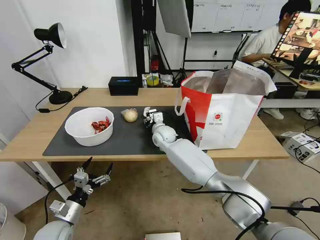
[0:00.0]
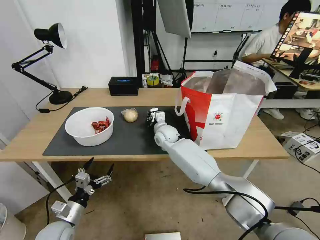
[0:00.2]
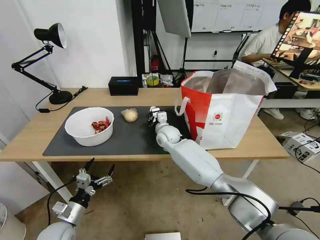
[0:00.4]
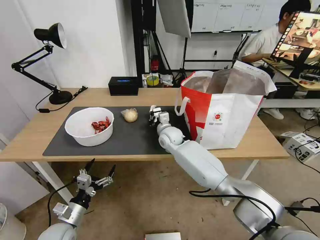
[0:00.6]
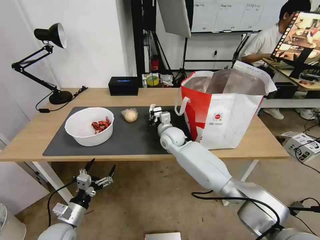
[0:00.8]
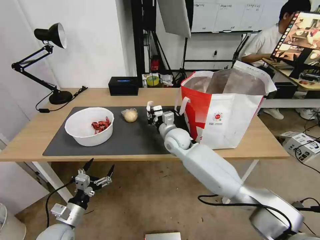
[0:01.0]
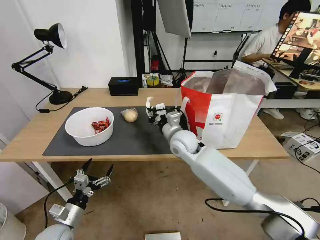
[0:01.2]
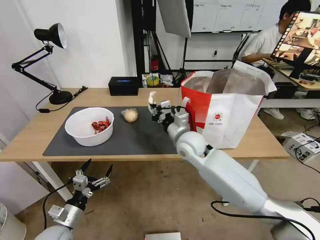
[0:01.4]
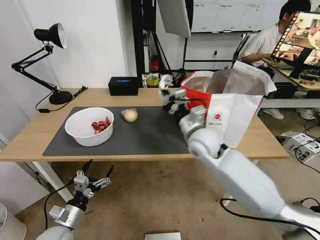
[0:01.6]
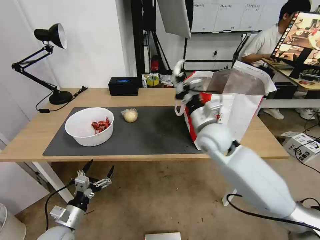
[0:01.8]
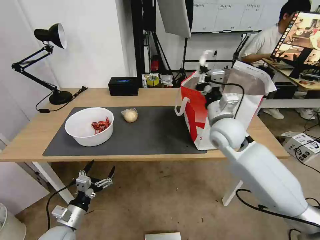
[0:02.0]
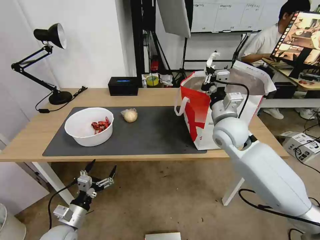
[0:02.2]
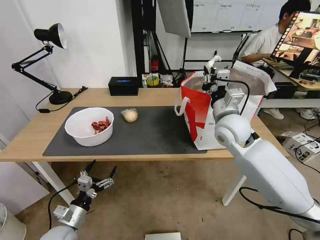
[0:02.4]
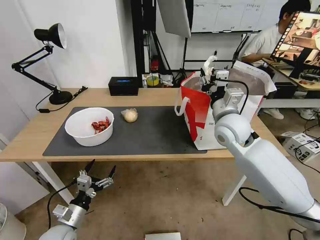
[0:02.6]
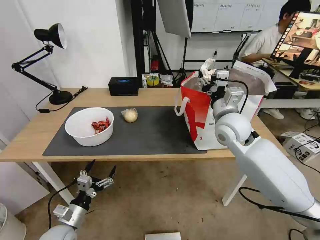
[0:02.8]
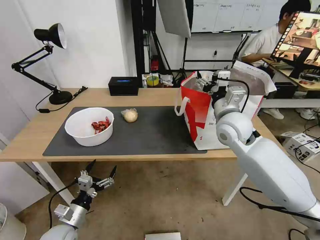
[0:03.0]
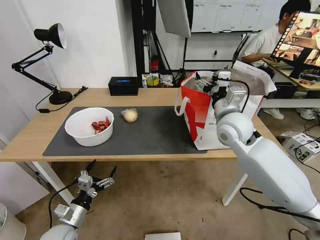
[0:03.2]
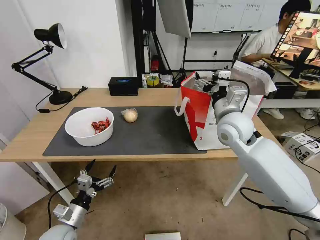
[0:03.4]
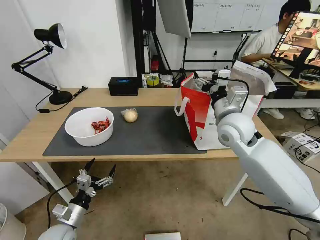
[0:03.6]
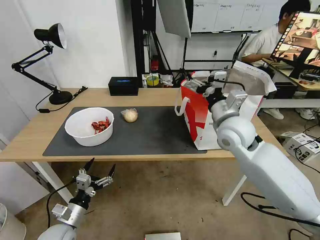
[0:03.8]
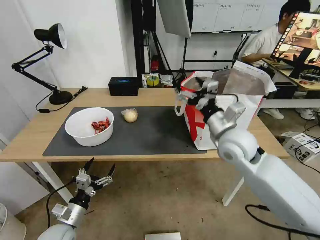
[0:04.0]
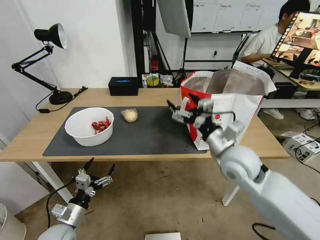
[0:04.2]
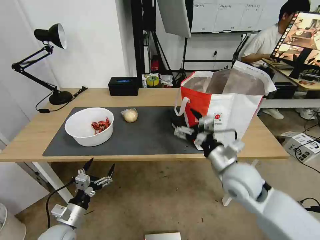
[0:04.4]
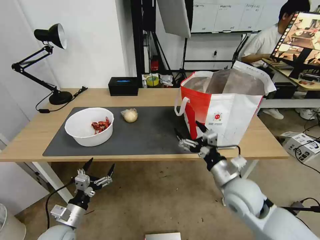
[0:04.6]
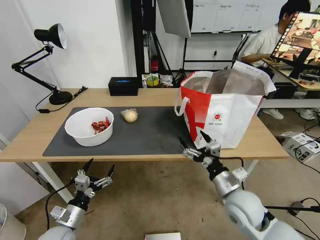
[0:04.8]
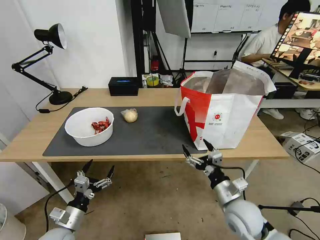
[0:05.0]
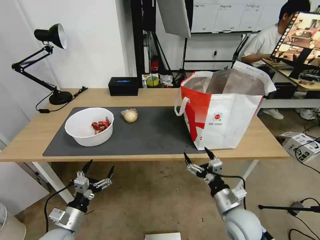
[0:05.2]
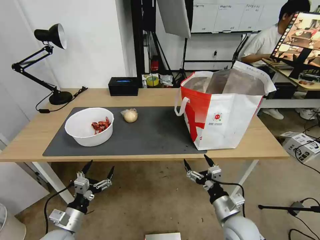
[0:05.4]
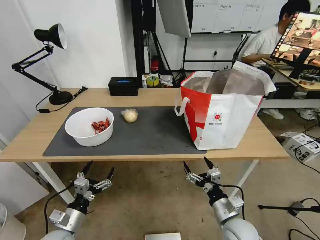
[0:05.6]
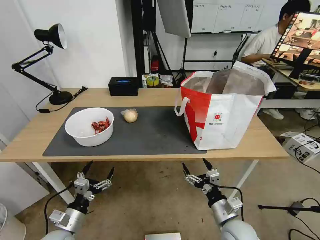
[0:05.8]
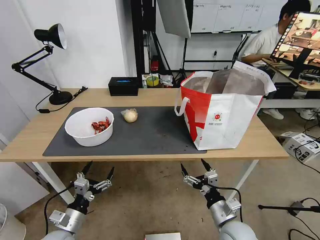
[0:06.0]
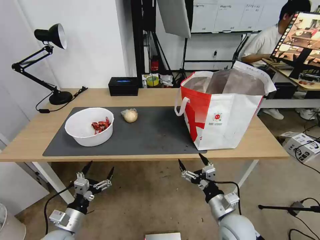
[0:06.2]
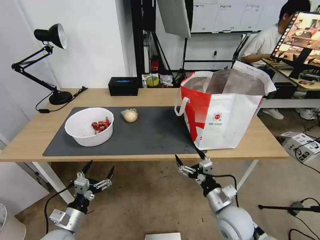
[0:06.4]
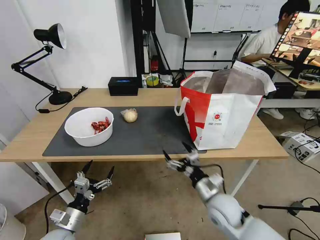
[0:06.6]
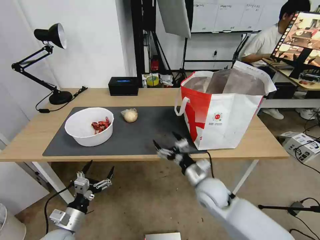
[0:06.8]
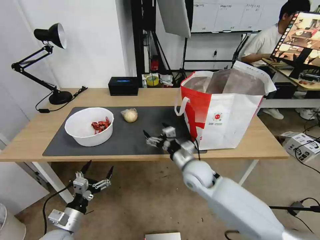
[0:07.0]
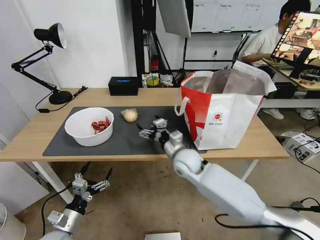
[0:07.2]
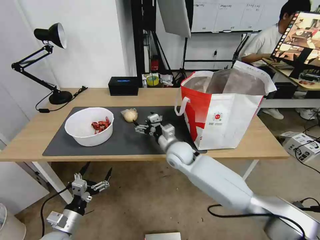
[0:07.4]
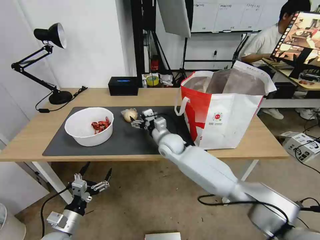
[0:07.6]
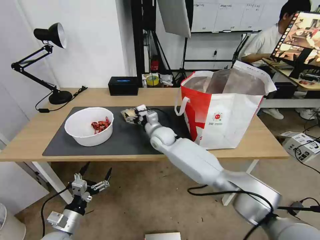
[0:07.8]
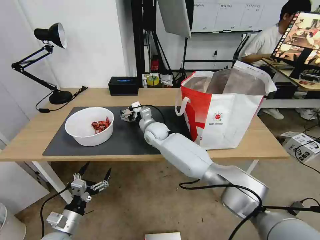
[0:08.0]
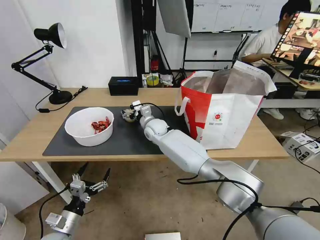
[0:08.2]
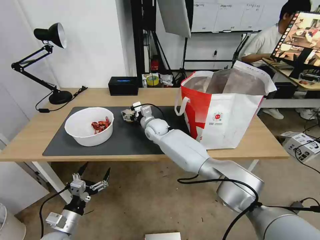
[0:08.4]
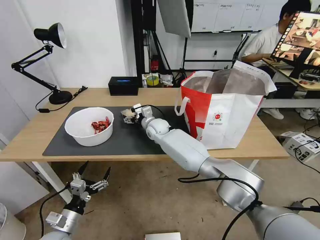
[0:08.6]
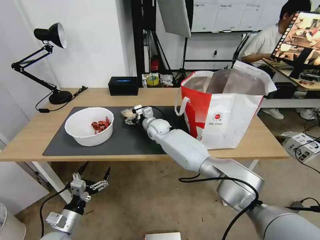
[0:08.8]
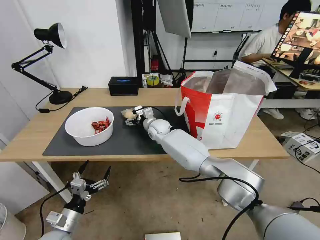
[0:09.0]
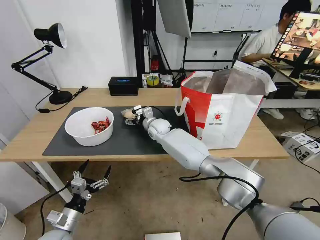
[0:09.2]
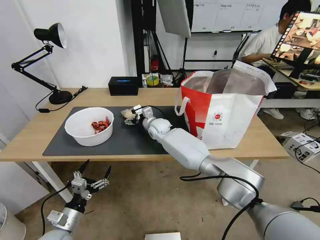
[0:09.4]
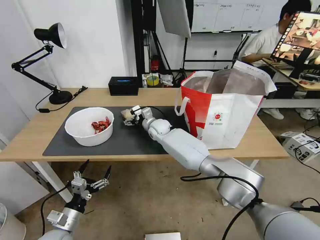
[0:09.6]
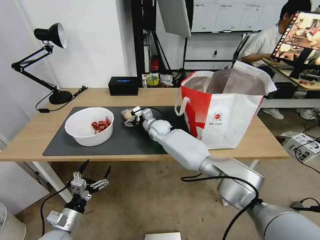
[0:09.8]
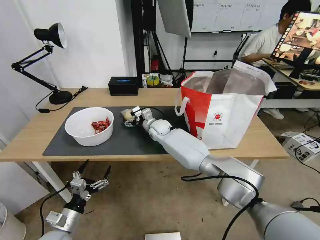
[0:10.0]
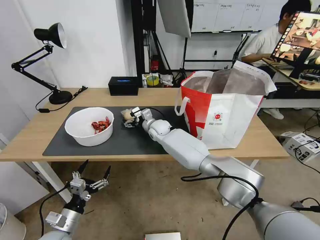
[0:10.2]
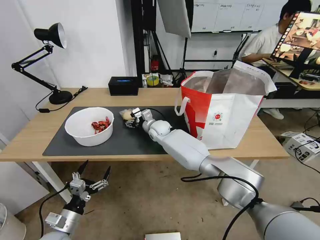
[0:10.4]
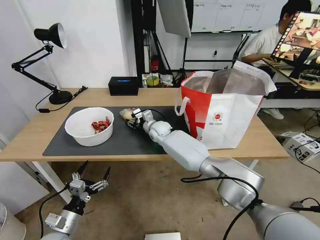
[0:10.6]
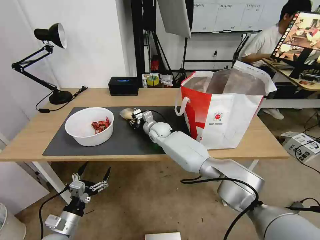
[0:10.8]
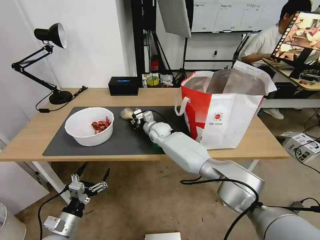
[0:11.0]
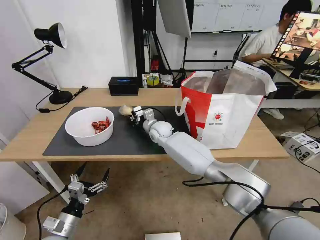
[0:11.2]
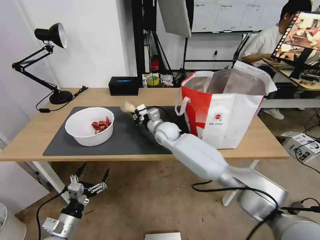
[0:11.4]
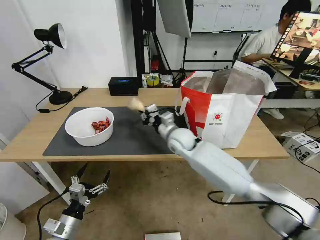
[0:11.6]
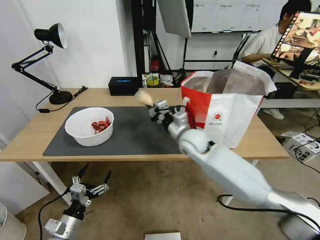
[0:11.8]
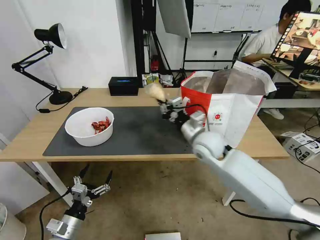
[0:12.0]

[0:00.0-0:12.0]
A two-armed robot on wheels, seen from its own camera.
Task of the whole recording: Pick up the trash from the table and place it into the takeout bag.
0:00.0 to 0:01.6: The right gripper travels backward, to the right and upward by approximately 20 cm, and closes its fingers.
0:01.6 to 0:03.0: The right gripper goes approximately 10 cm to the right and upward, and opens its fingers.
0:03.0 to 0:04.4: The right gripper moves backward and downward, roughly 15 cm.
0:04.4 to 0:06.0: The right gripper heads downward and backward, covering approximately 20 cm.
0:06.0 to 0:07.6: The right gripper heads forward and to the left, covering roughly 35 cm.
0:07.6 to 0:09.0: The right gripper goes about 10 cm forward.
0:09.0 to 0:10.4: The grippers move only a little.
0:10.4 to 0:12.0: The right gripper shifts some 25 cm backward, to the right and upward, and closes its fingers.

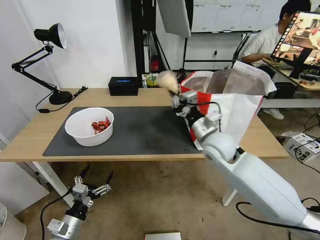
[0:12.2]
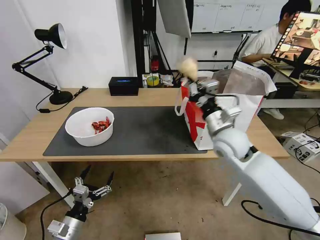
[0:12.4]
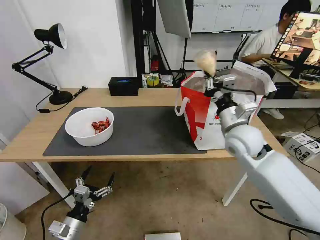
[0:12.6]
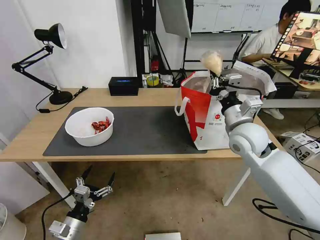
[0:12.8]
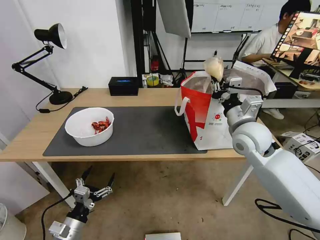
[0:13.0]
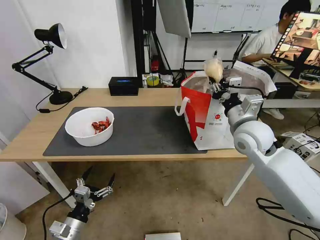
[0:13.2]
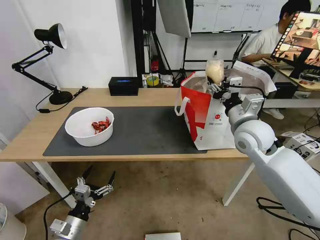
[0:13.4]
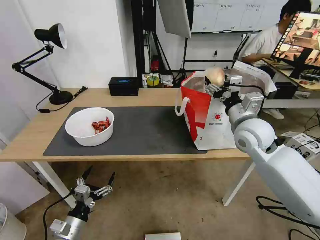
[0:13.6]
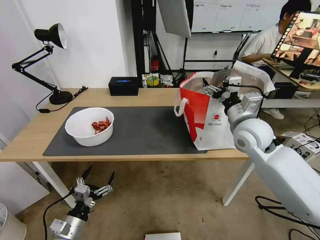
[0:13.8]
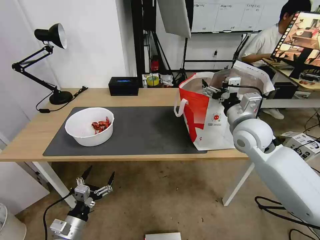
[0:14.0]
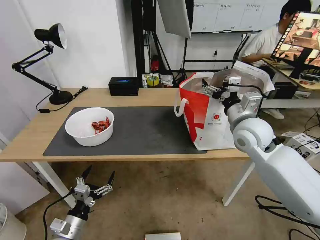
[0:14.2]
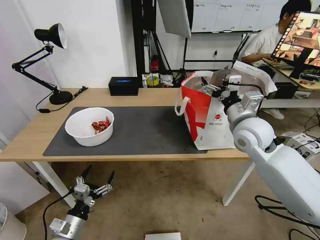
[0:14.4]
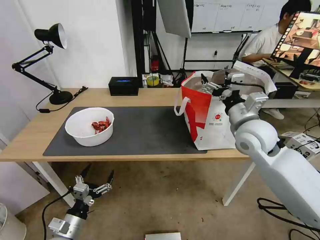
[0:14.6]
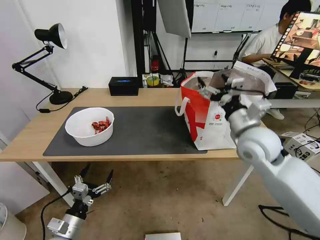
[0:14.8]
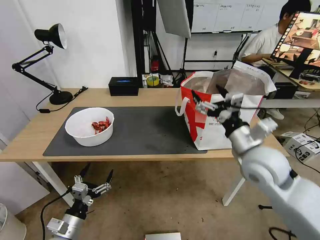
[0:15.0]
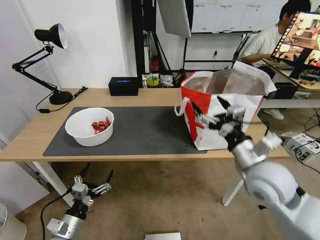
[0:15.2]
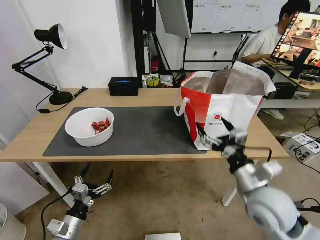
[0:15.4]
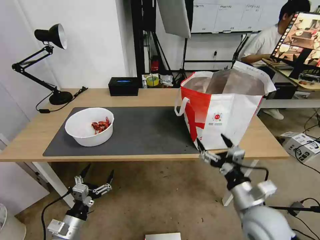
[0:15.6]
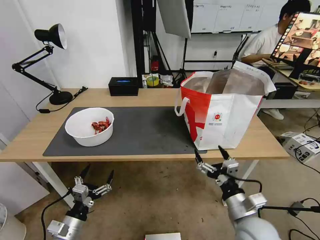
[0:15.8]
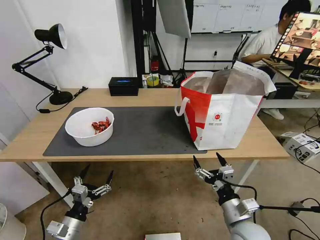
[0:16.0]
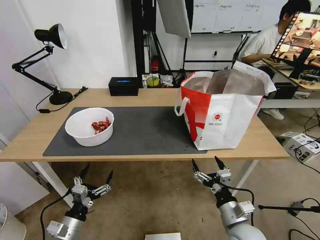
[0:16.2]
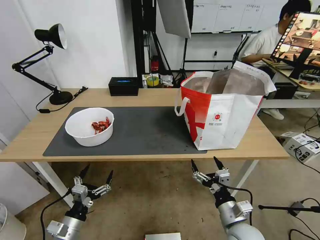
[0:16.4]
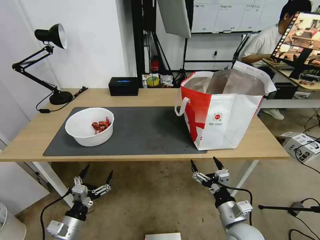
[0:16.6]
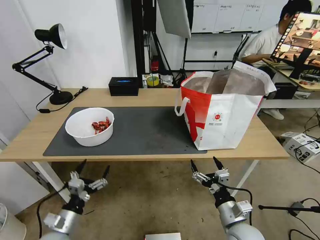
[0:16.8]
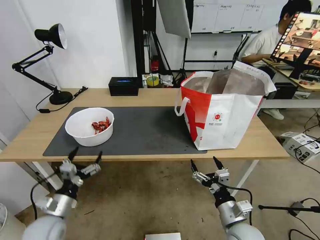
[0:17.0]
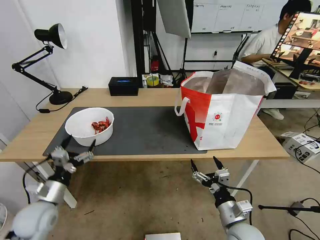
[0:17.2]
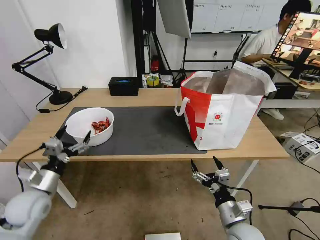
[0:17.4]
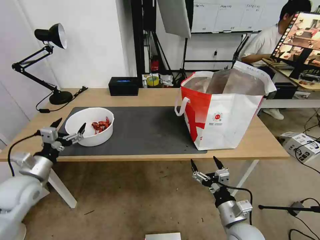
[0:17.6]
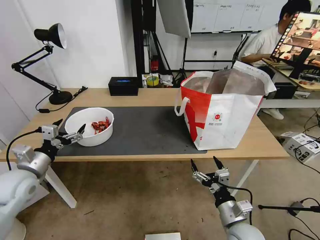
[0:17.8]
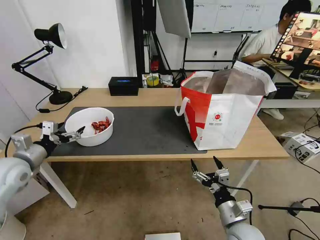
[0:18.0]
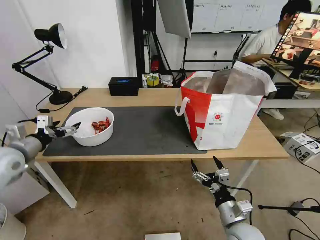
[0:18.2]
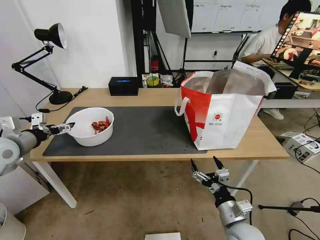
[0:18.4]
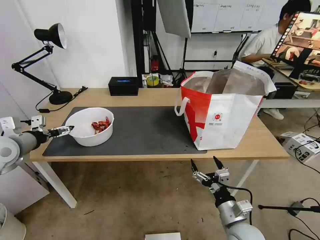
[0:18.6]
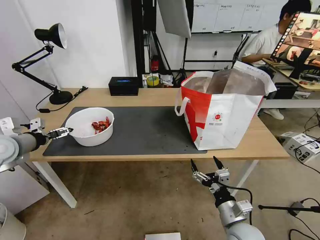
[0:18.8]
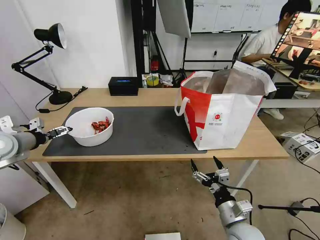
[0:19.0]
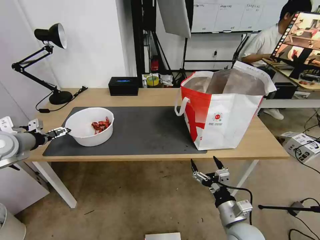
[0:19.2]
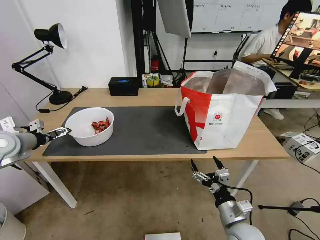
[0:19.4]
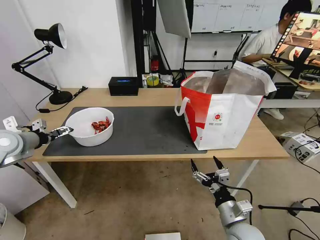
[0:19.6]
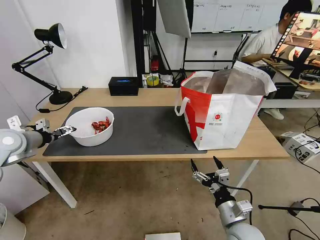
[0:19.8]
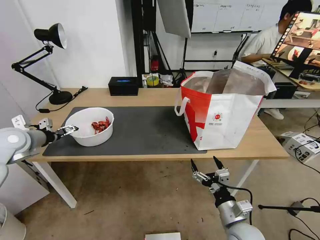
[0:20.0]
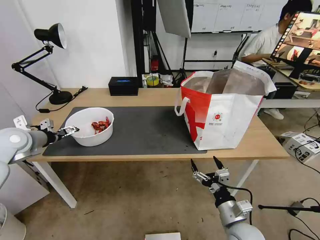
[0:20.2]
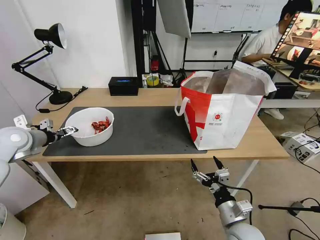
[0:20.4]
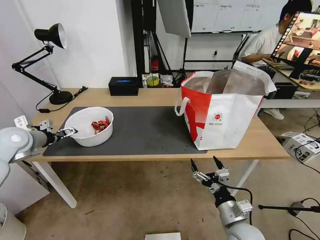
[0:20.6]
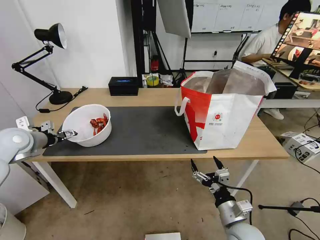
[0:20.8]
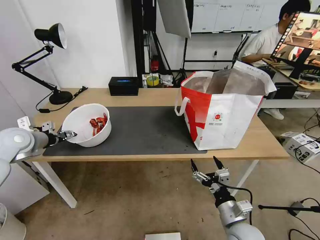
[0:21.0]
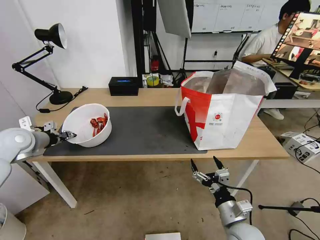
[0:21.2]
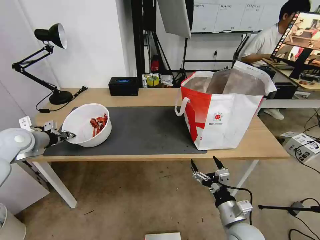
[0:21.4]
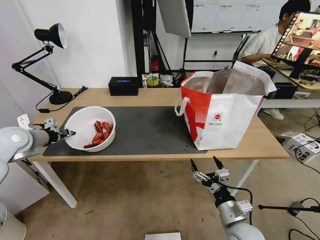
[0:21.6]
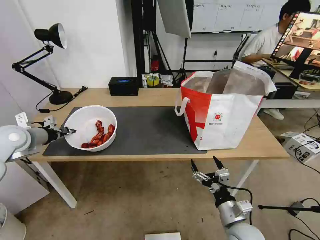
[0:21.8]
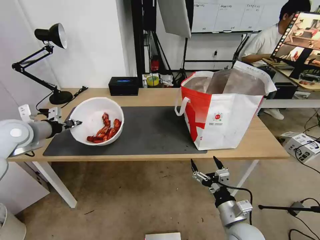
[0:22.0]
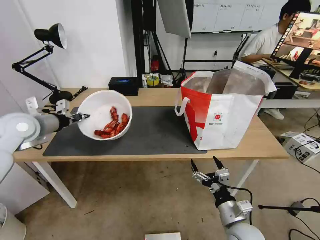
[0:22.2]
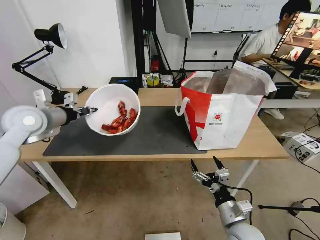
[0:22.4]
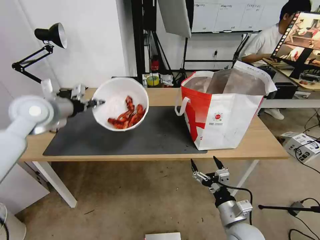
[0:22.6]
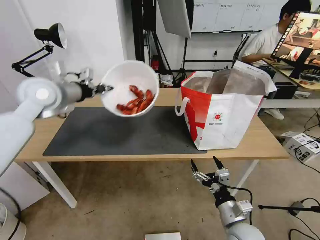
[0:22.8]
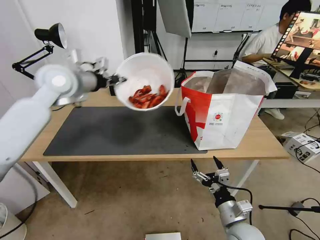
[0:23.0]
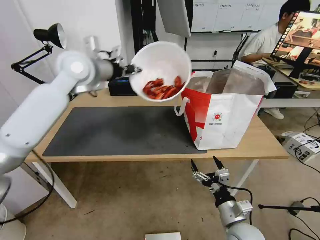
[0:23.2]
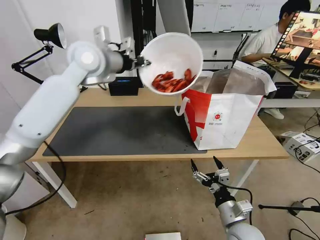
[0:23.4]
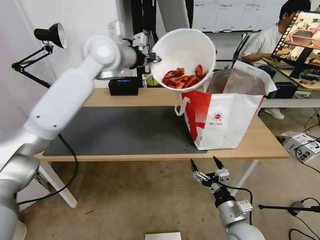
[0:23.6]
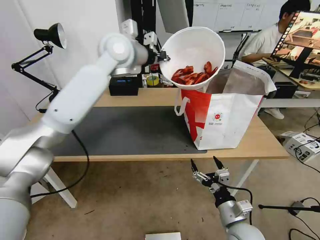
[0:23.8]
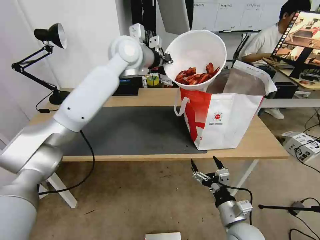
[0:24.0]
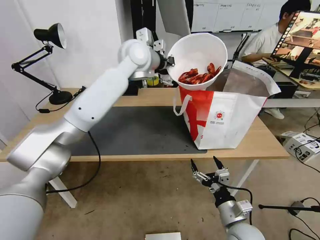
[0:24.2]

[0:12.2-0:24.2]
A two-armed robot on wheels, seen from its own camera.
Task of the whole recording: Pick up the trash from the table and place it into the takeout bag.
0:12.2 to 0:13.8: The right gripper moves to the right, roughly 10 cm, and opens.
0:13.8 to 0:15.2: The right gripper travels backward by approximately 15 cm.
0:15.2 to 0:16.6: The right gripper travels downward and backward by roughly 20 cm.
0:16.6 to 0:18.2: The left gripper travels upward, forward and to the left by some 30 cm.
0:18.2 to 0:19.8: The left gripper moves about 5 cm.
0:19.8 to 0:21.2: The left gripper closes.
0:21.2 to 0:22.6: The left gripper travels to the right and upward by about 15 cm, and closes.
0:22.6 to 0:24.2: The left gripper goes some 30 cm to the right and forward.
